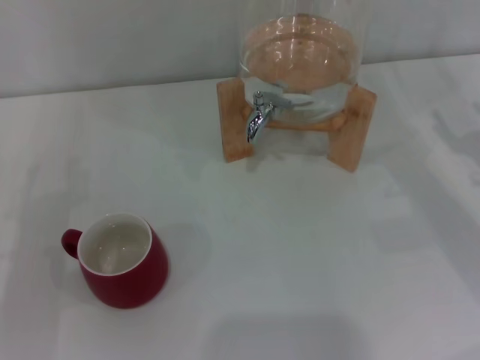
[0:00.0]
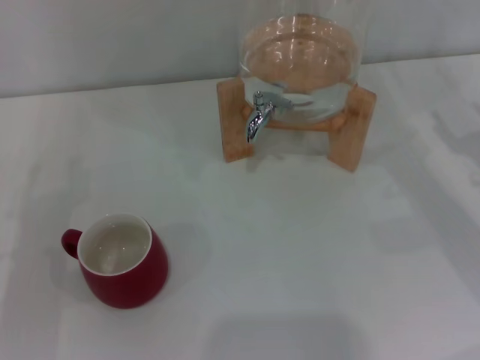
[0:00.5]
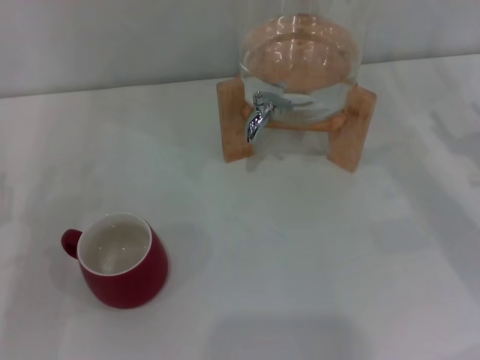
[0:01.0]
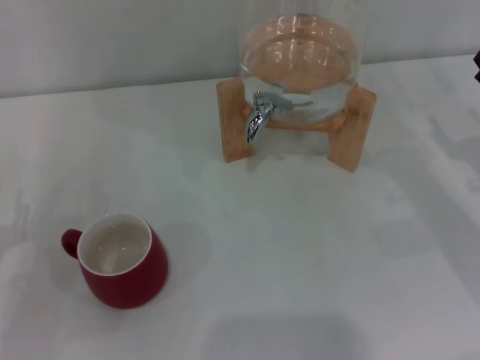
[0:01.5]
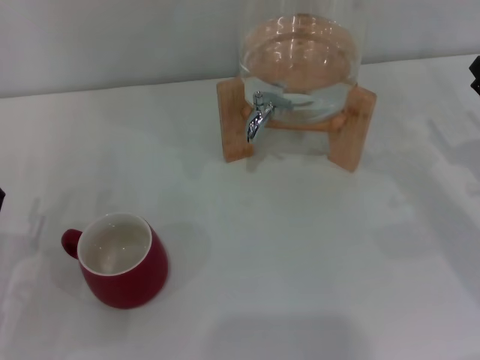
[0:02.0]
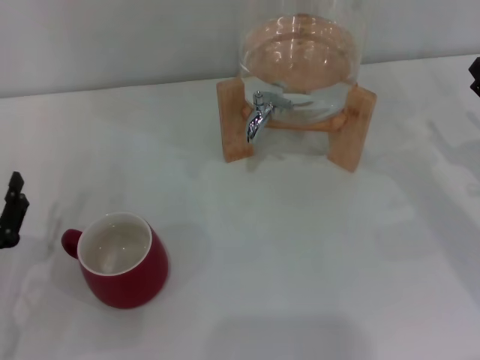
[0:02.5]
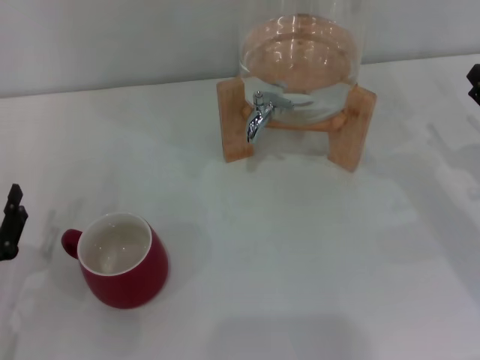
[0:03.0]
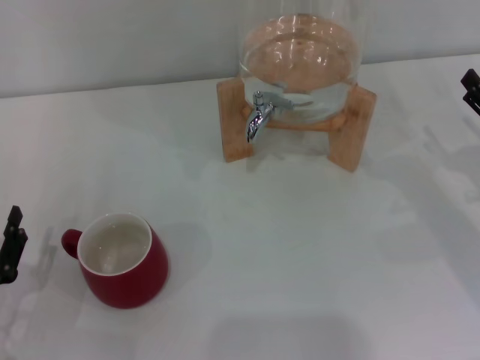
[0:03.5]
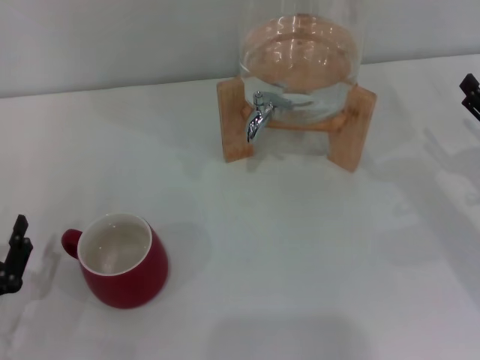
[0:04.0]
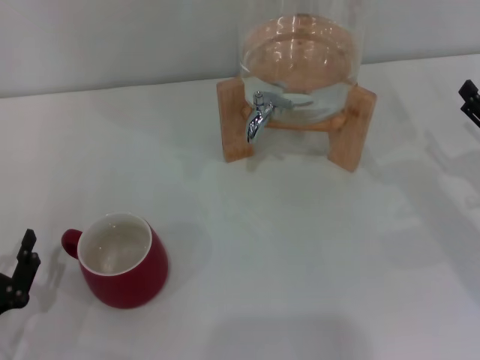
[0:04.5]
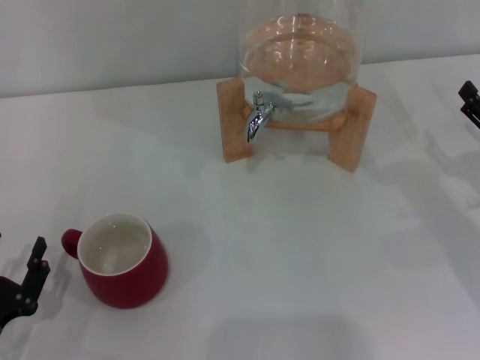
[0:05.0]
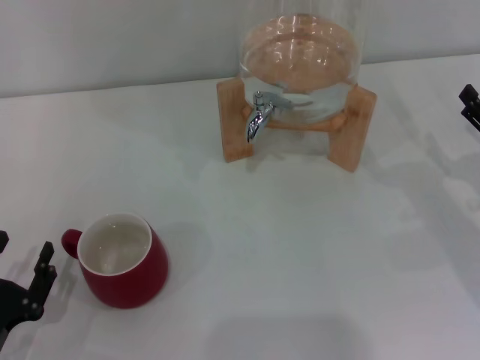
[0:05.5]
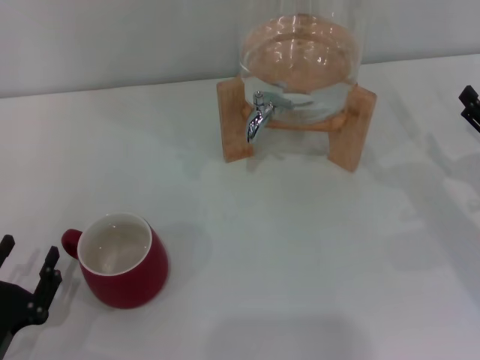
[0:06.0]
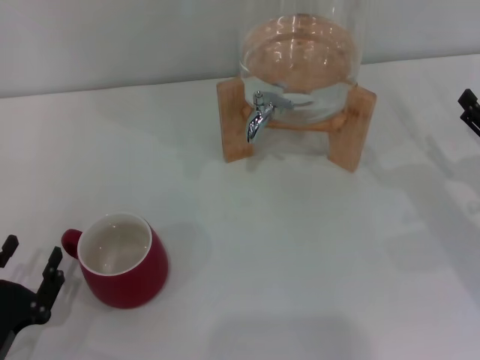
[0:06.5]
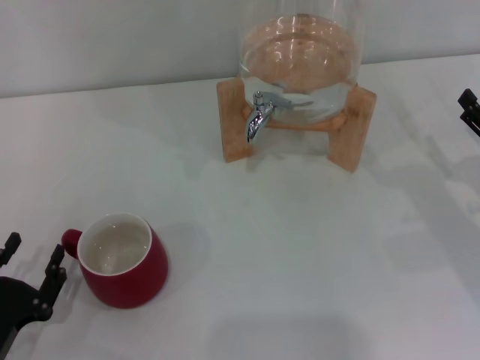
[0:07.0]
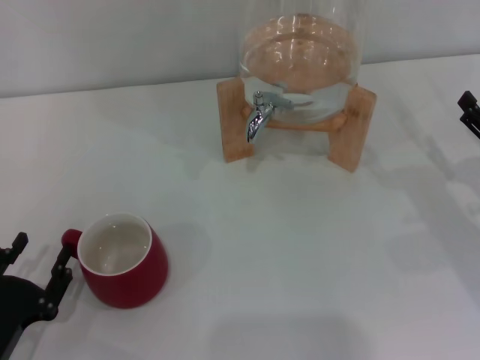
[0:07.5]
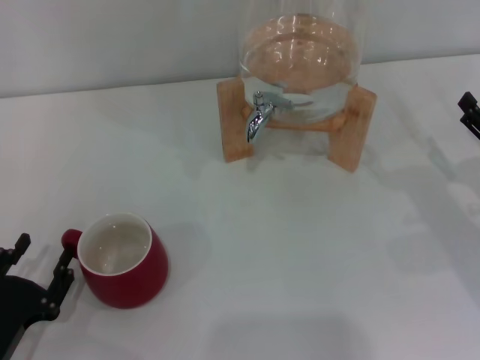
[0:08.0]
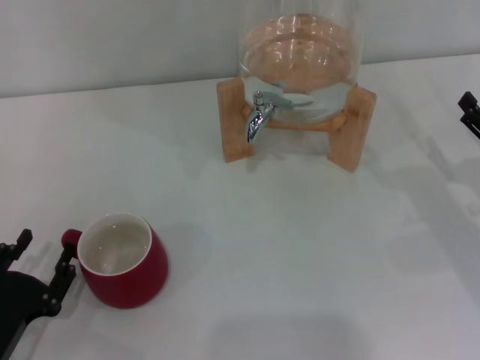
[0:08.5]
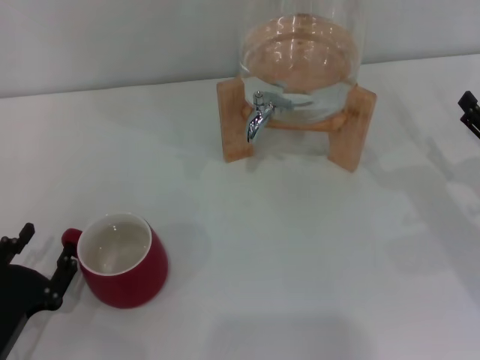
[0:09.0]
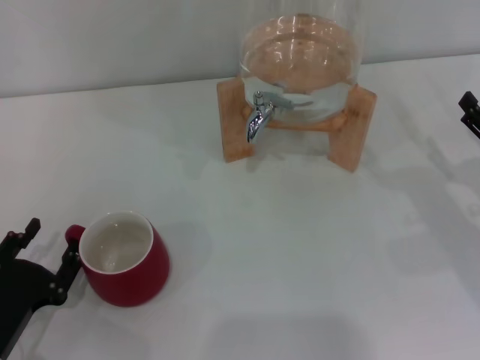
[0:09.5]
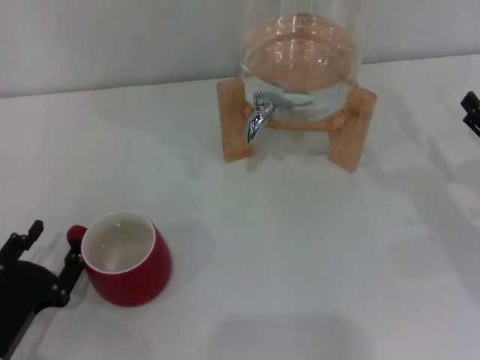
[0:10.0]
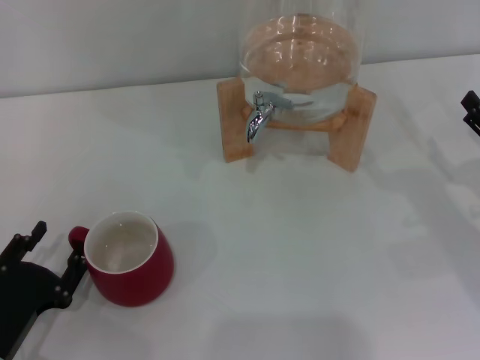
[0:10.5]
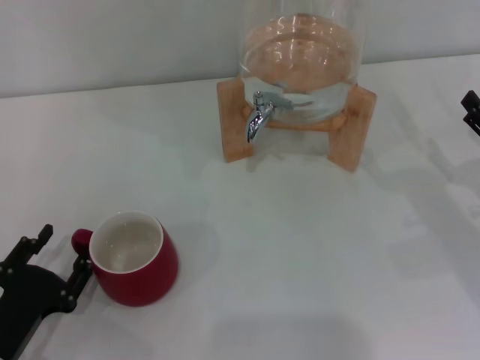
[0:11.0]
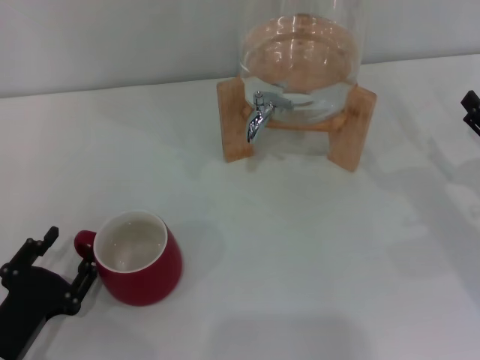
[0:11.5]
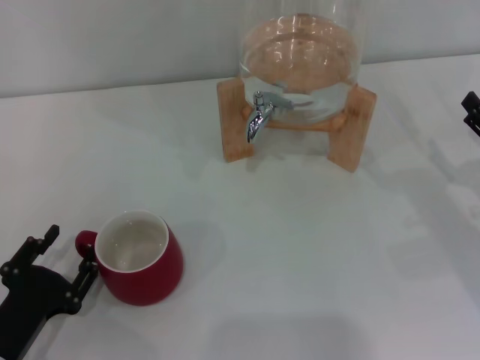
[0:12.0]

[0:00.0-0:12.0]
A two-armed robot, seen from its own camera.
Task of the whole recording: the left gripper pick up the red cup and place it horizontally under the faucet, the right gripper turn on the faucet to fill the cup, and then turn off the faucet.
0:02.0 to 0:04.0: The grippers make only small movements.
0:04.0 to 0:06.0: The grippers move only a little.
0:06.0 to 0:08.0: Both grippers stay about where they are.
0:08.0 to 0:10.0: The grippers make only small movements.
0:10.0 to 0:12.0: Both grippers stay put.

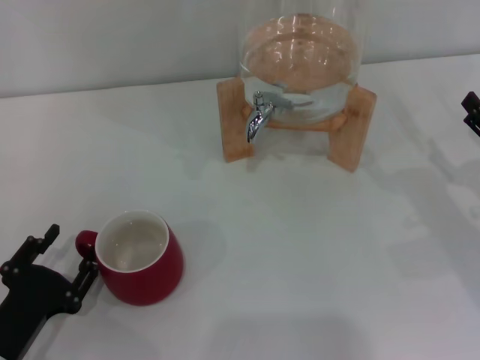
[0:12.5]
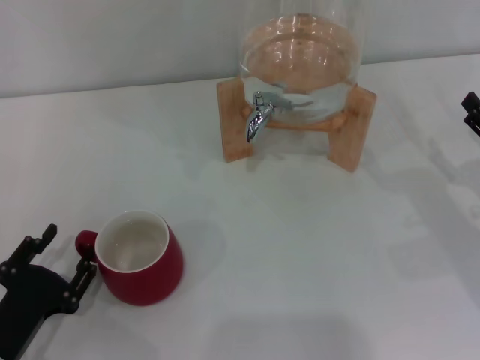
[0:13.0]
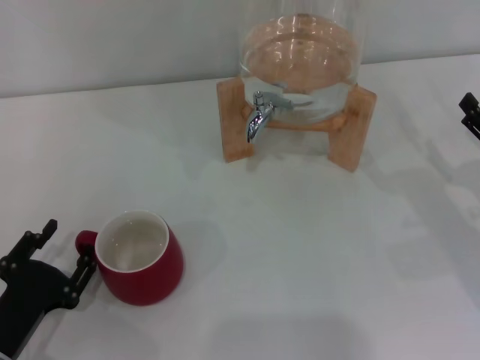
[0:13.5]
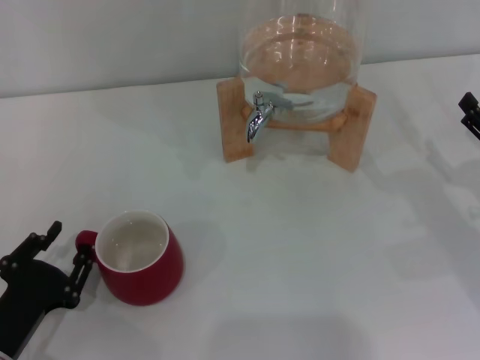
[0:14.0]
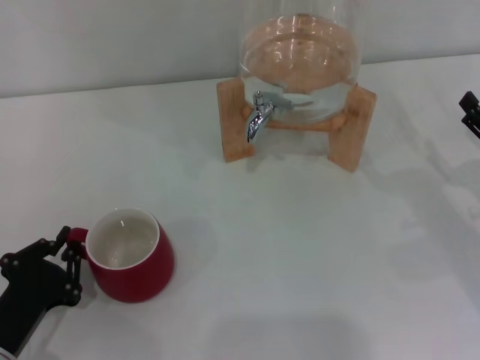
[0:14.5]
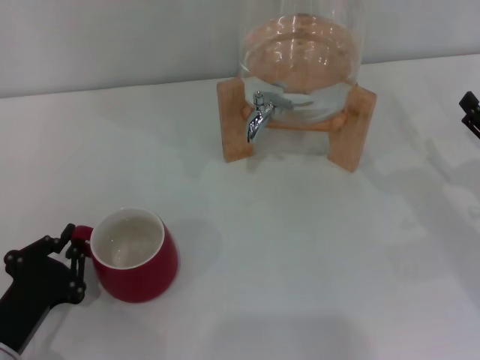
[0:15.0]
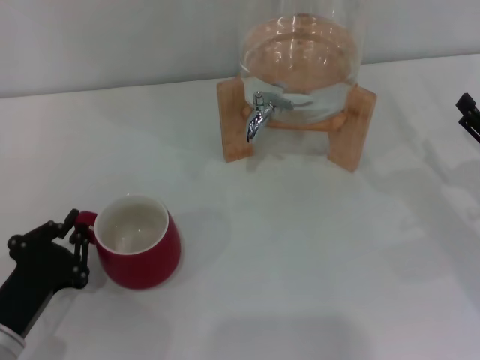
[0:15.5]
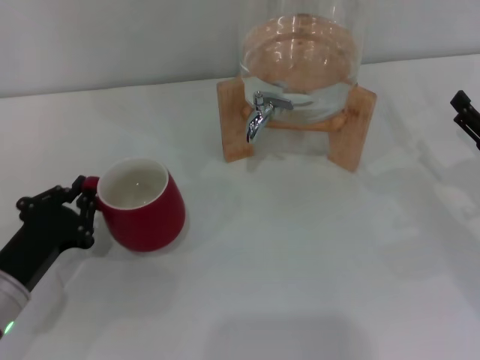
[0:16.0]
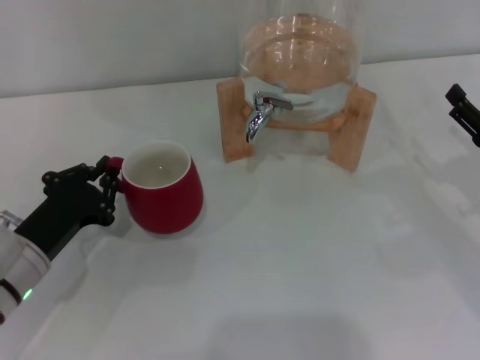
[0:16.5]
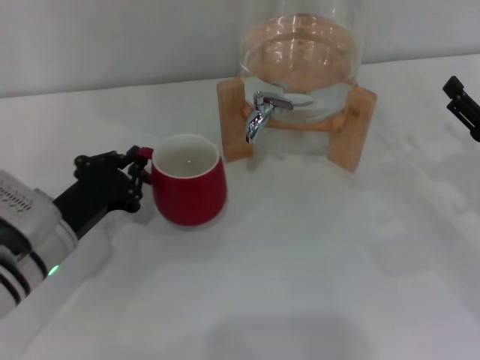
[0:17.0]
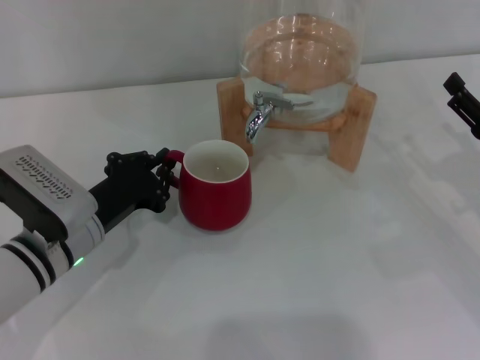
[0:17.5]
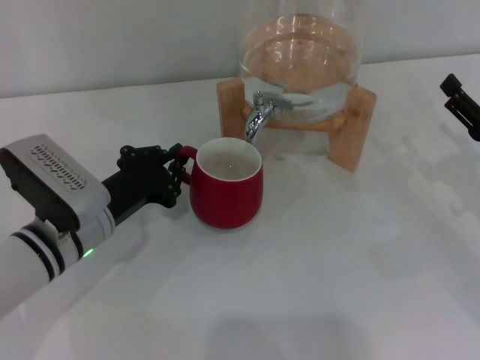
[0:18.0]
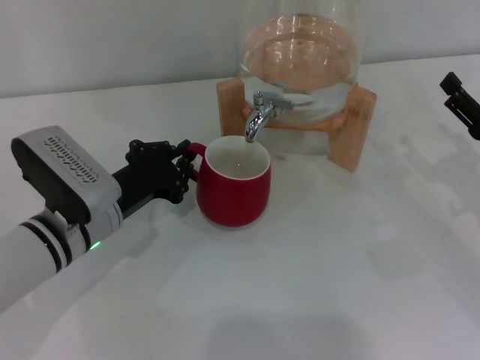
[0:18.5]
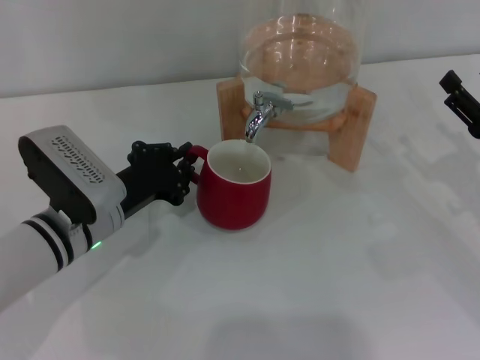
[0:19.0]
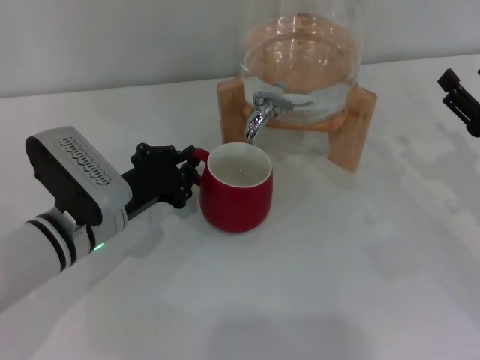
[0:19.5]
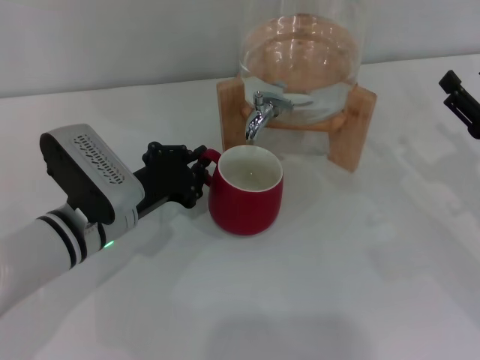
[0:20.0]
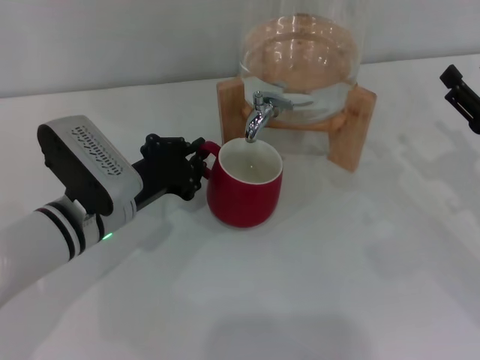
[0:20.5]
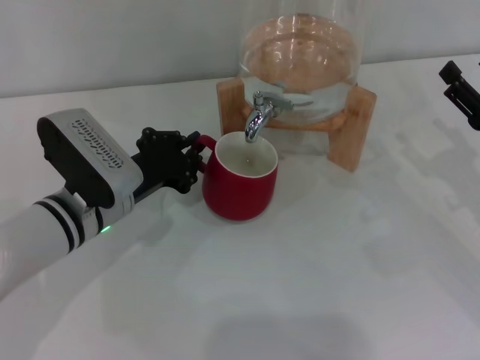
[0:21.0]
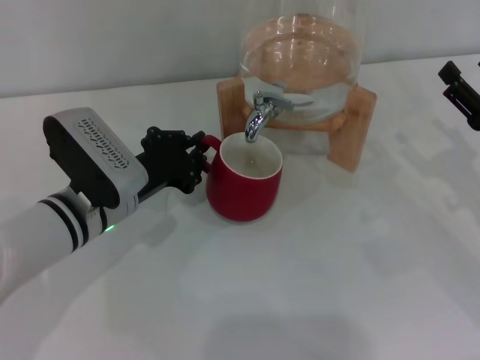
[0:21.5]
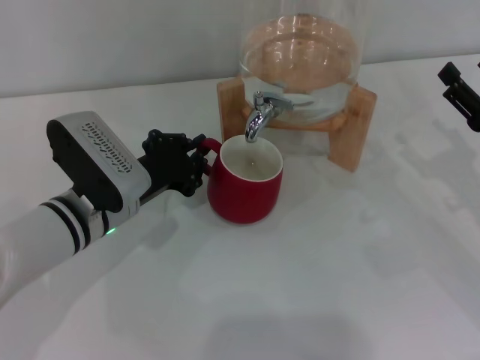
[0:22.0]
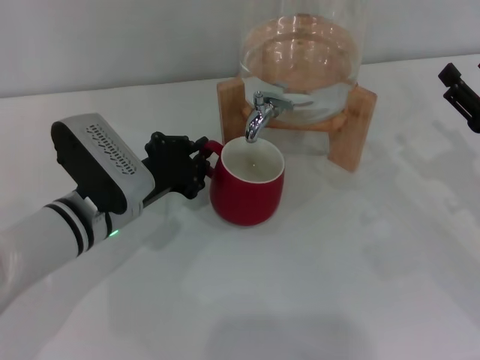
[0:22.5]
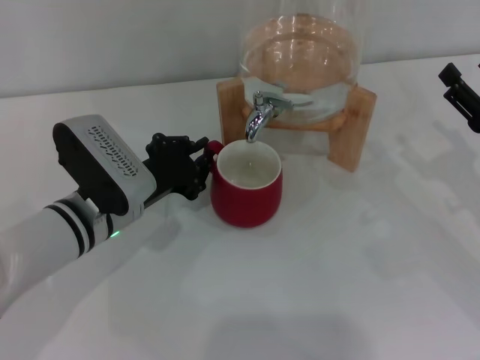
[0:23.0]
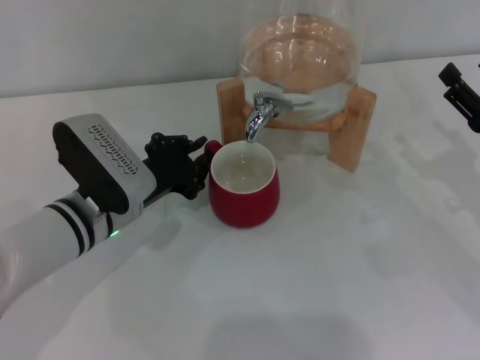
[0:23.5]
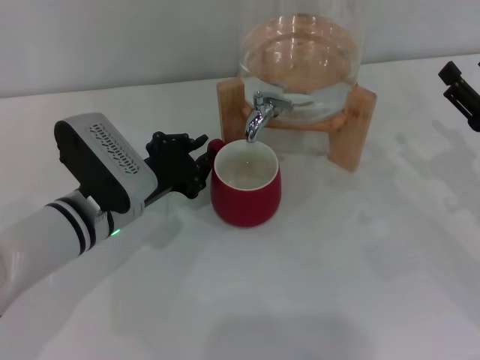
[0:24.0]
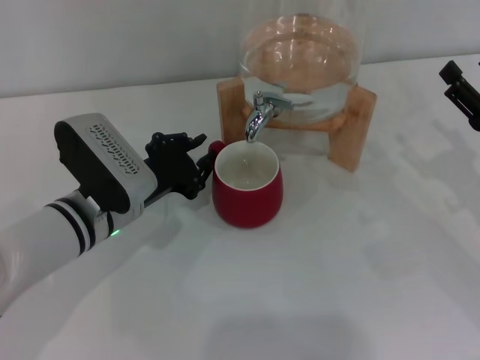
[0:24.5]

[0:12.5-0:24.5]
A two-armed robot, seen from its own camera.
Task of the whole recording: the left gripper pick up the red cup and place it horizontally under the faucet, the right gripper turn on the faucet to fill the cup, and then turn off the faucet.
0:12.5 to 0:14.5: The left gripper closes.
0:14.5 to 0:16.5: The left gripper goes roughly 10 cm forward.
0:16.5 to 0:18.5: The left gripper travels to the right by about 5 cm.
0:18.5 to 0:20.5: The grippers stay close to where they were, moving slightly.
0:20.5 to 0:24.5: Both grippers stay put.

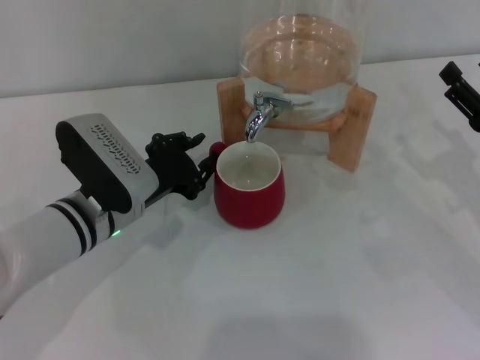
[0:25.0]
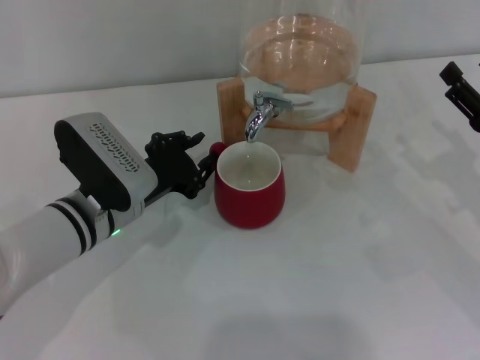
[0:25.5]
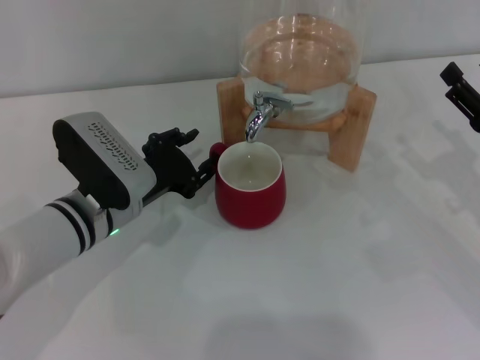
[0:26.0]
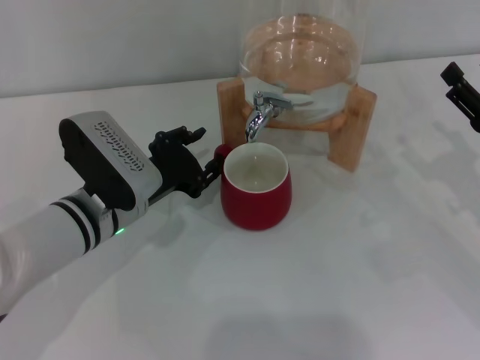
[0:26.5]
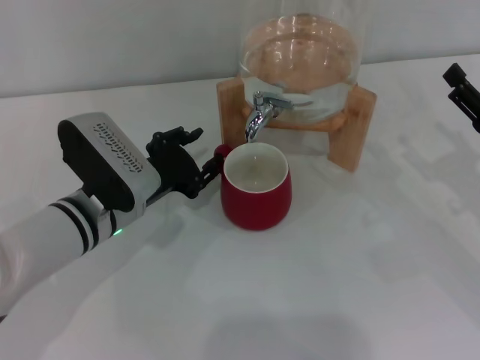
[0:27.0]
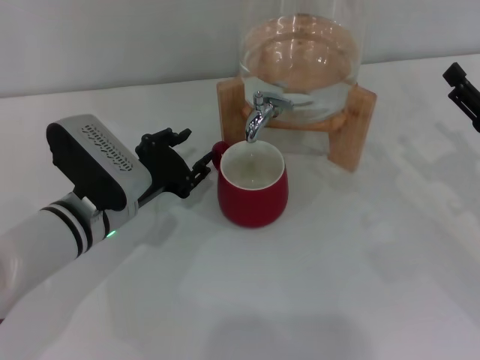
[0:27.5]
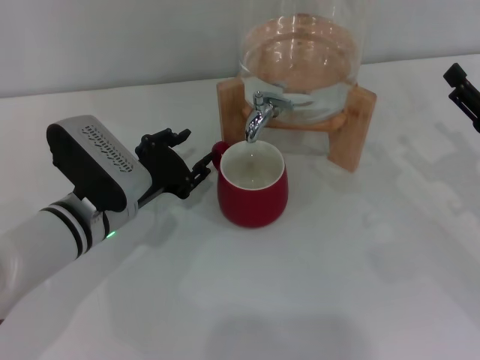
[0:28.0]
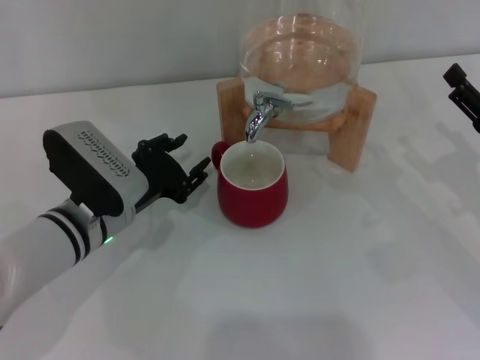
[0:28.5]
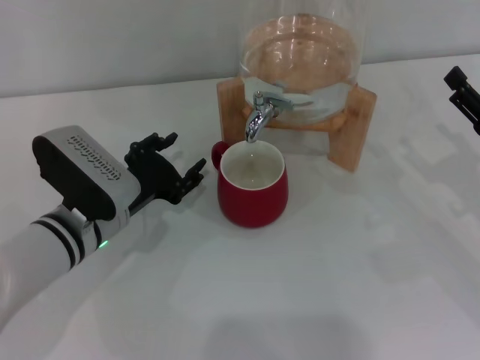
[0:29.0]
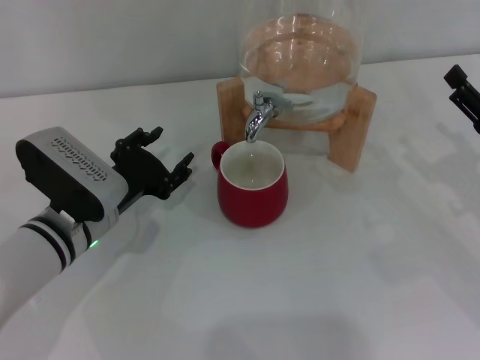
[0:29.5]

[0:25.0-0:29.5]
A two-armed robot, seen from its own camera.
Task of the whole recording: the left gripper pick up the red cup and place it horizontally under the faucet, the right gripper turn on the faucet to fill the cup, and then turn off the faucet.
0:25.0 to 0:27.0: Both grippers stay about where they are.
0:27.0 to 0:29.5: The grippers stay close to where they were, moving slightly.
